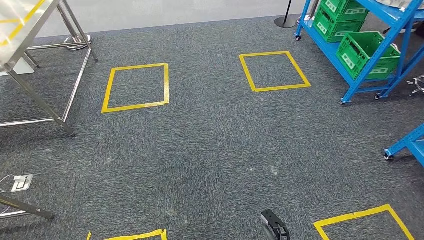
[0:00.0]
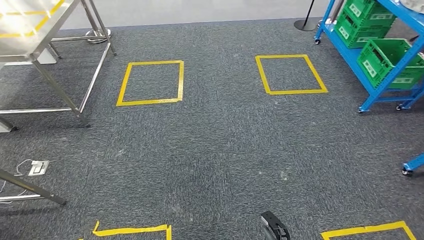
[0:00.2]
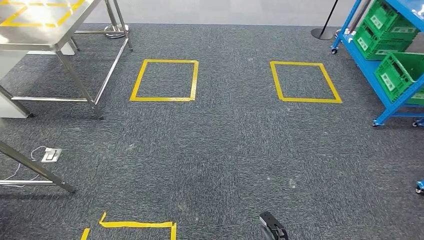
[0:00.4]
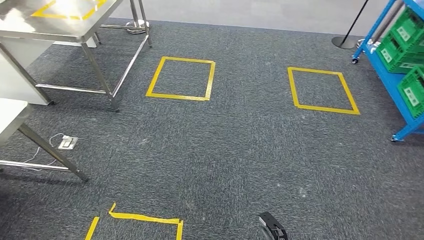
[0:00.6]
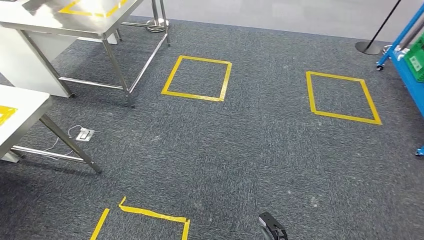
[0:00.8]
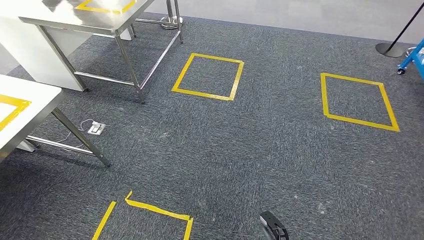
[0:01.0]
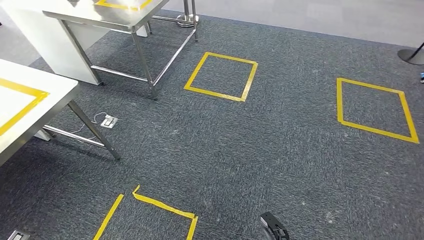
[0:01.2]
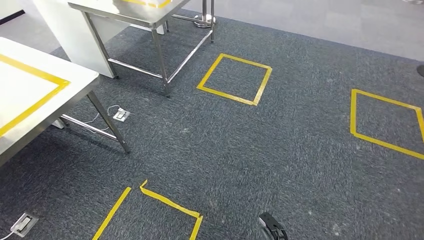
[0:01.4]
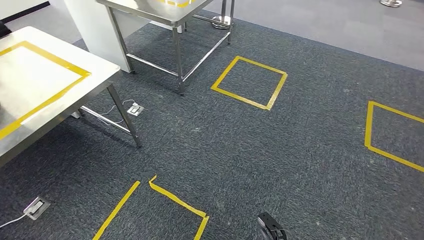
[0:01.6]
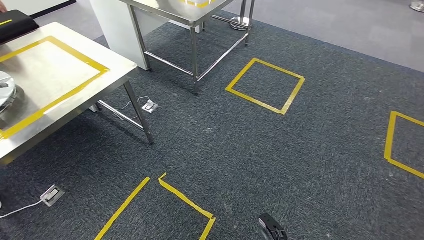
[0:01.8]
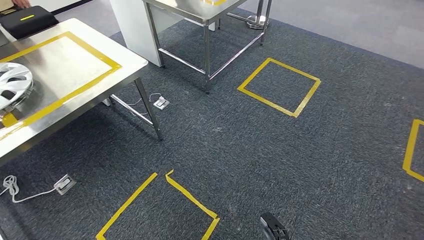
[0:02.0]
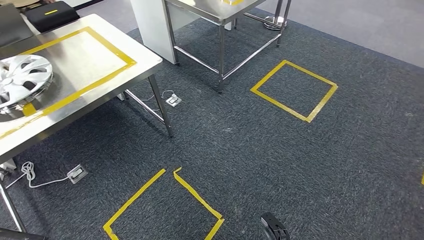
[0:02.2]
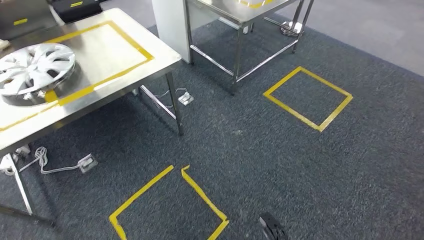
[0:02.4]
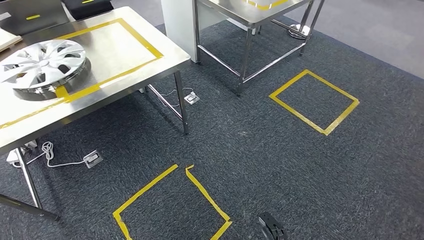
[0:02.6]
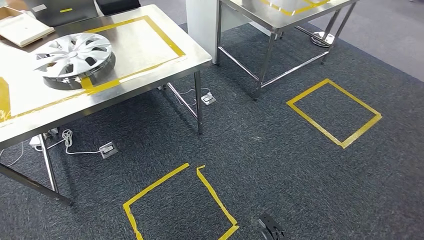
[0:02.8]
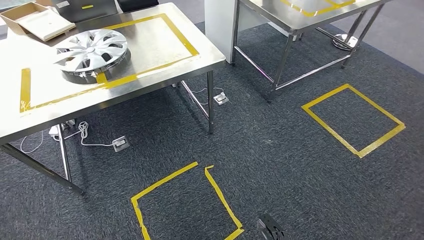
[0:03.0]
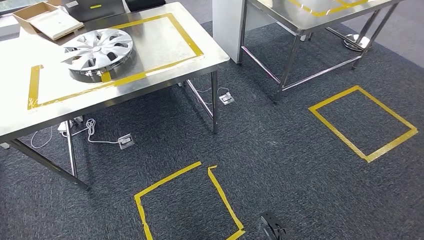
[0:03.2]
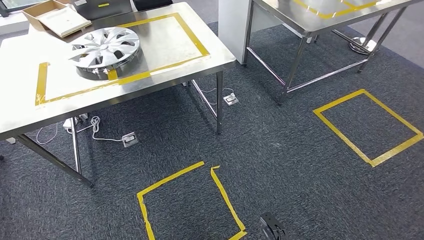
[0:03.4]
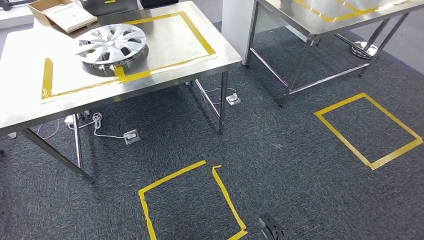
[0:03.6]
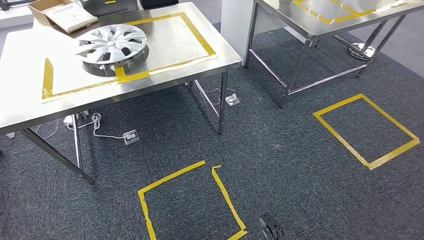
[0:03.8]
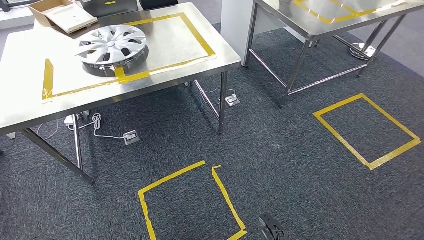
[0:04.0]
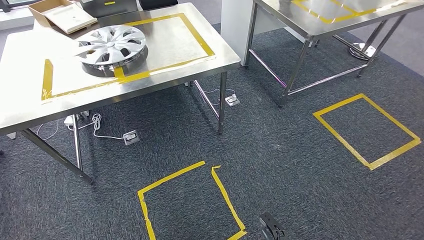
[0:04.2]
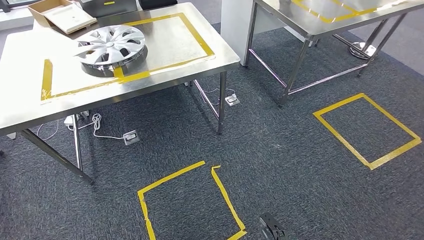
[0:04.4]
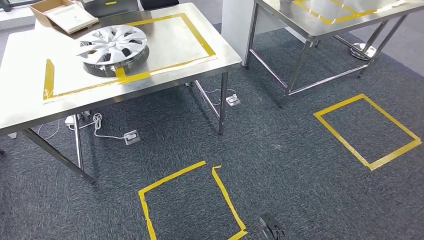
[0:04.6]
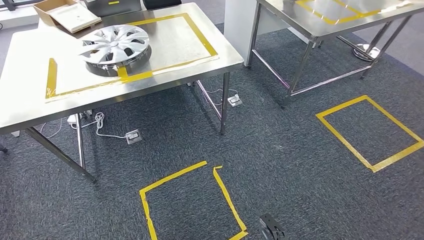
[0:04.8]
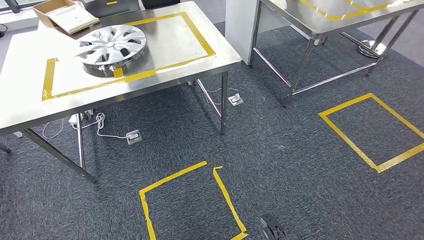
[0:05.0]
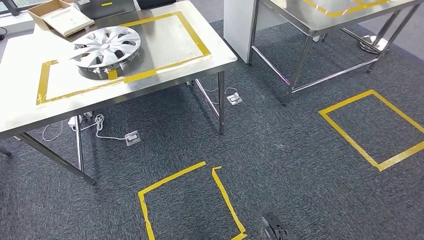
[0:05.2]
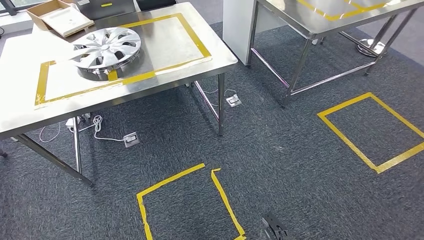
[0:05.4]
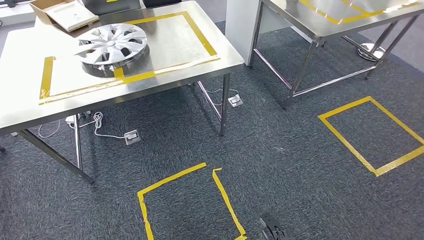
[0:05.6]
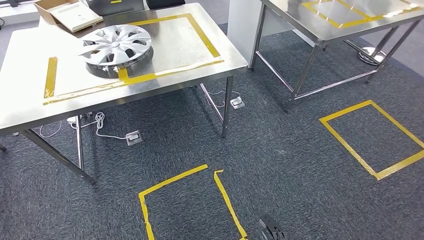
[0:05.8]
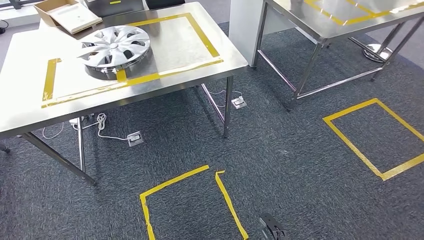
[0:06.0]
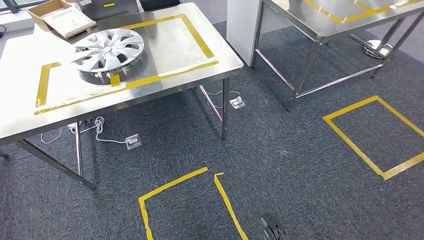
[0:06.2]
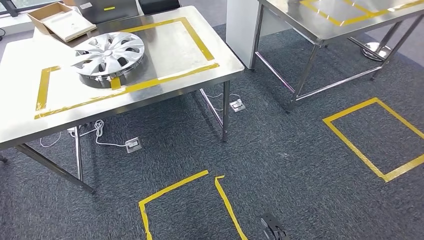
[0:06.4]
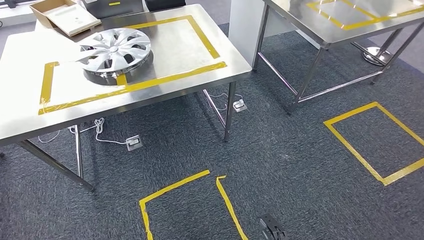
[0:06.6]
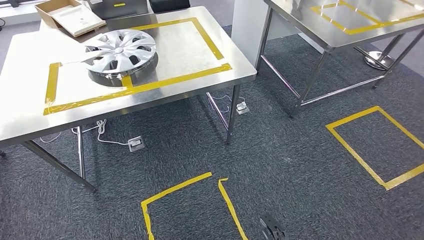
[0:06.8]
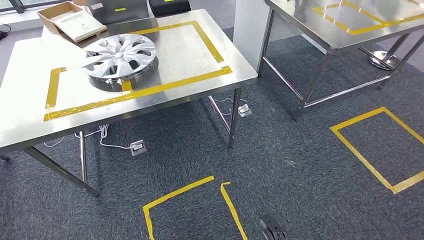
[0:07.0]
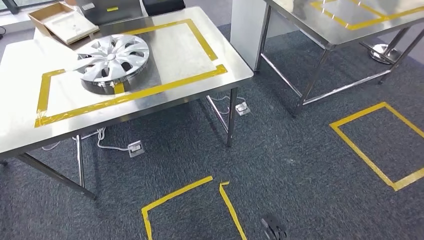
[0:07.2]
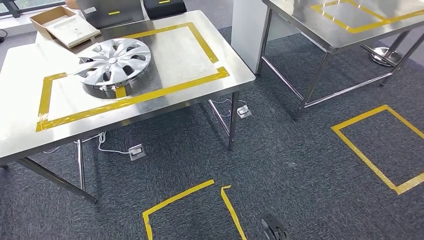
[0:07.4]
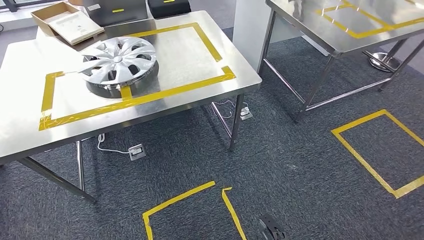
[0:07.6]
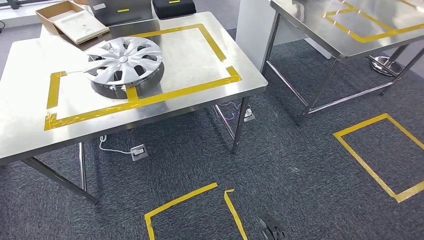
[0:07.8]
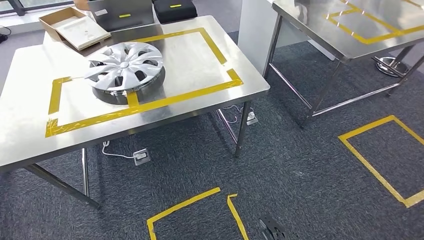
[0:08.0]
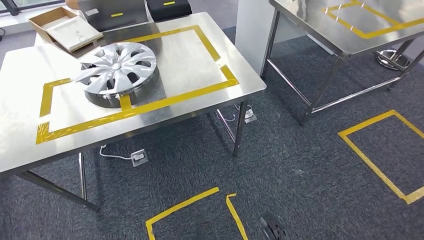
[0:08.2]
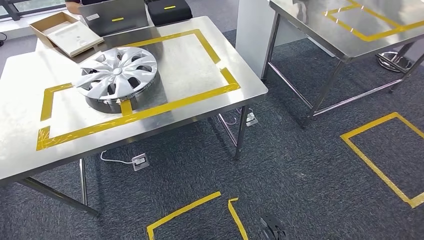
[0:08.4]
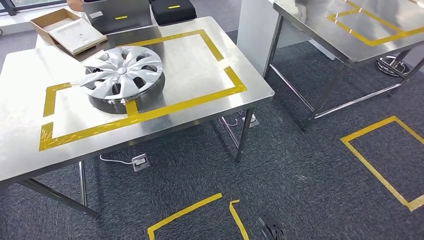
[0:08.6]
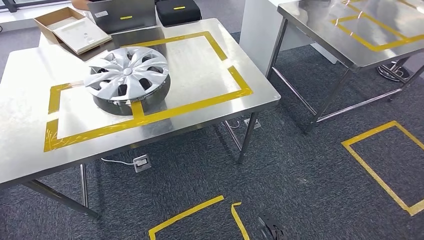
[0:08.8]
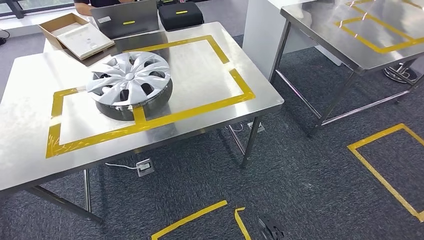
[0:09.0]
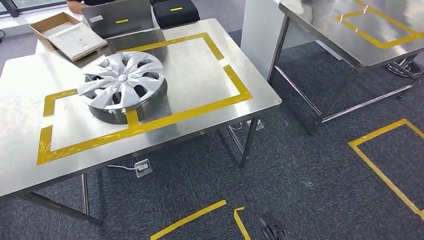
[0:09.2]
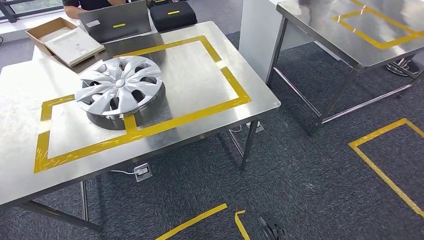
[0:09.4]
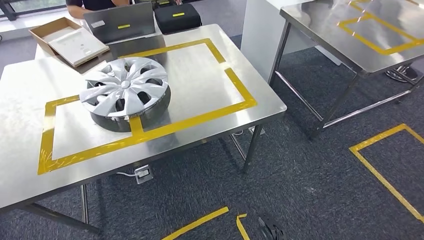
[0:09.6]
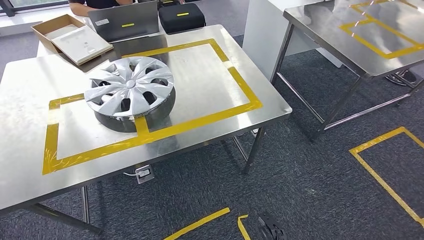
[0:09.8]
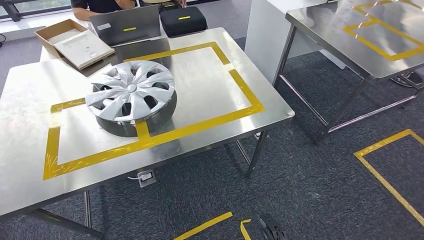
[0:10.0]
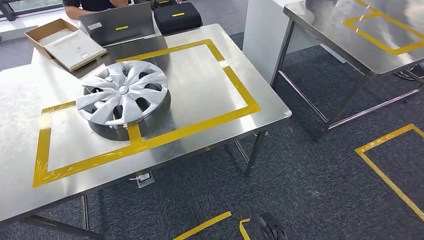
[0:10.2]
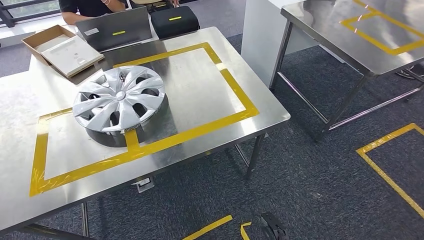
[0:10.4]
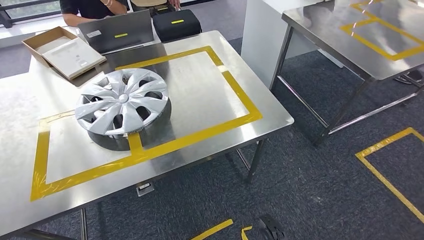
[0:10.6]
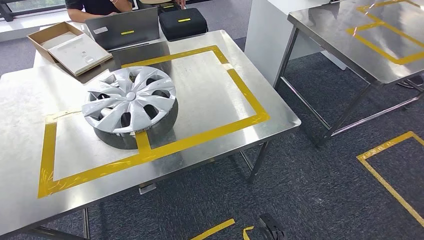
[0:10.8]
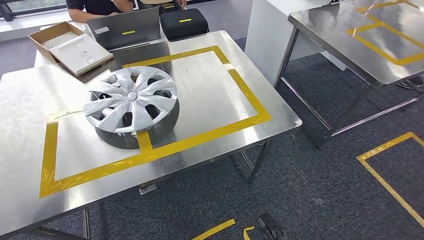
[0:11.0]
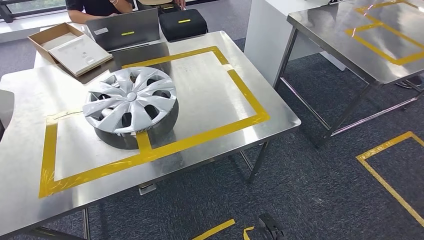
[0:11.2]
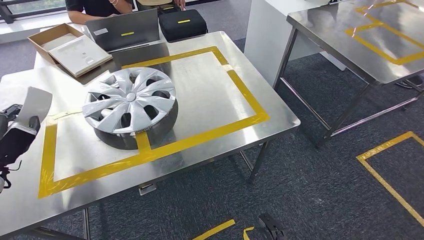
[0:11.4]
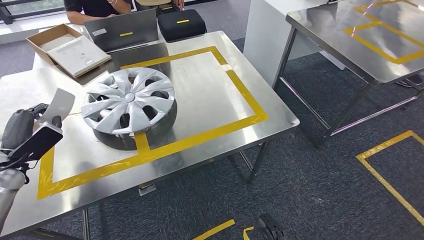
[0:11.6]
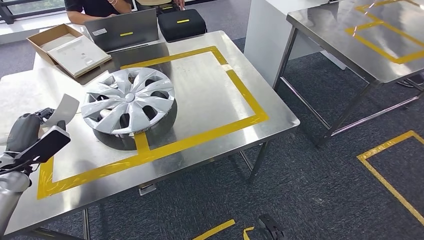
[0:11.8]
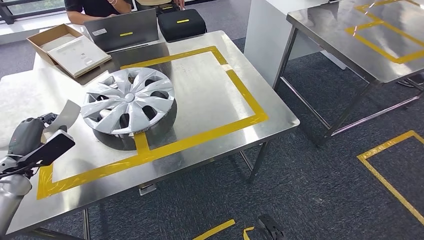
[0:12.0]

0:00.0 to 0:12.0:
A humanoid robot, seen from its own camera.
Step, 0:00.0 to 0:08.4: Move the small parts to the workbench.

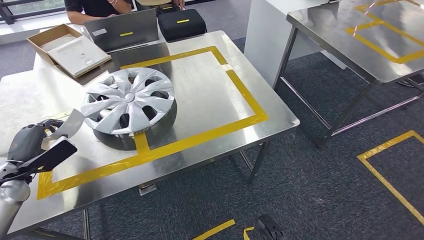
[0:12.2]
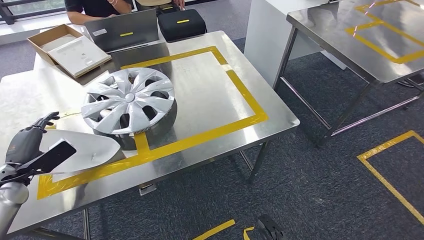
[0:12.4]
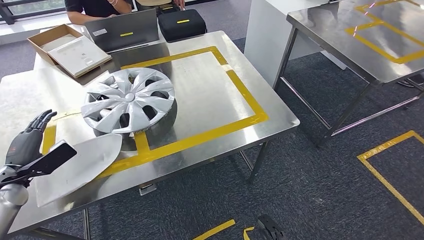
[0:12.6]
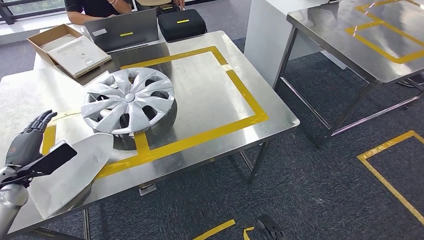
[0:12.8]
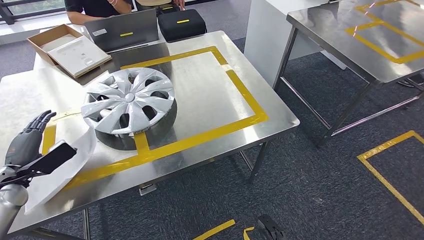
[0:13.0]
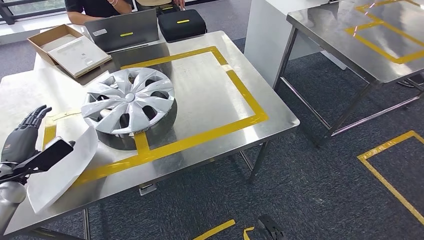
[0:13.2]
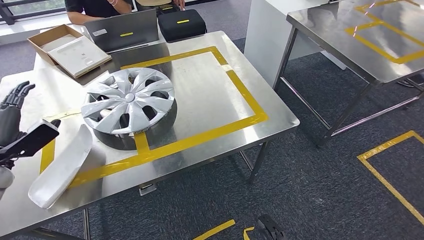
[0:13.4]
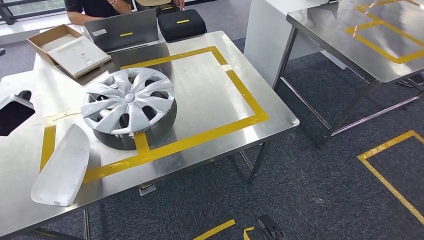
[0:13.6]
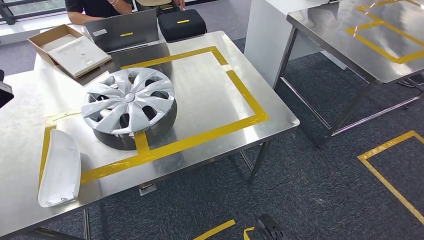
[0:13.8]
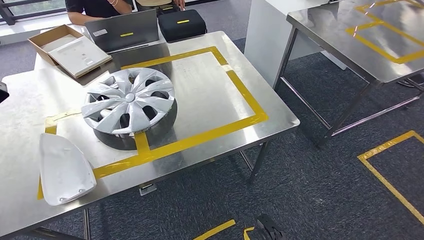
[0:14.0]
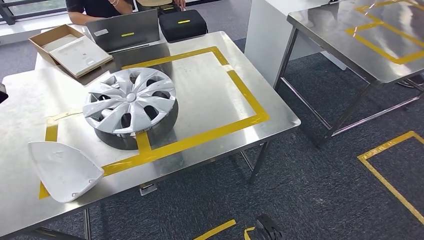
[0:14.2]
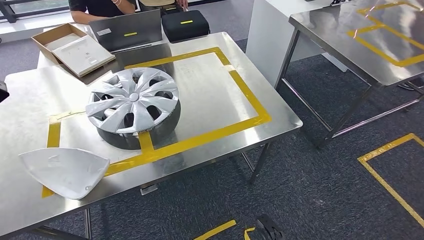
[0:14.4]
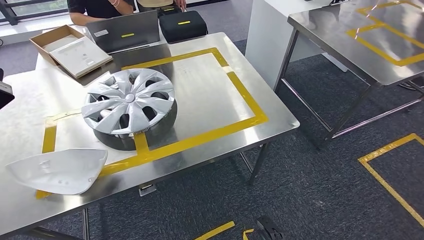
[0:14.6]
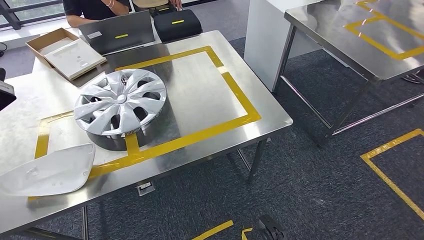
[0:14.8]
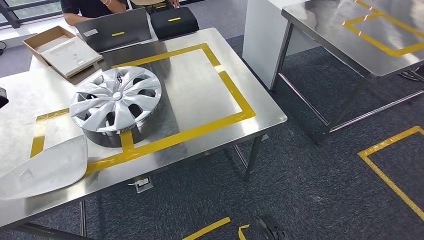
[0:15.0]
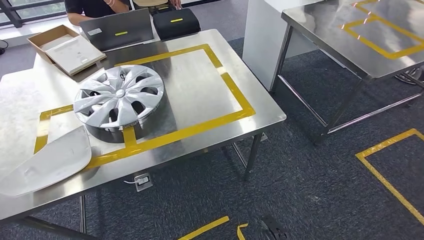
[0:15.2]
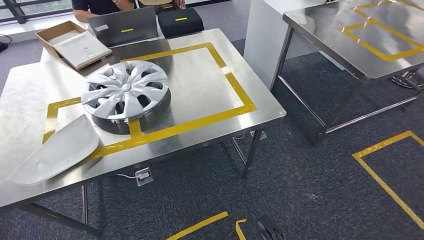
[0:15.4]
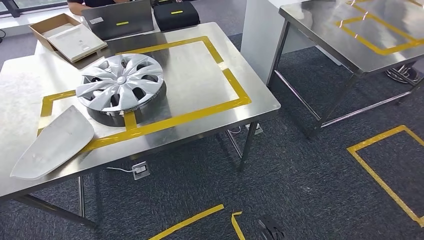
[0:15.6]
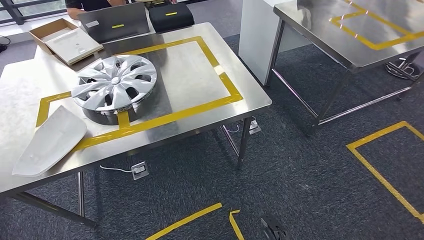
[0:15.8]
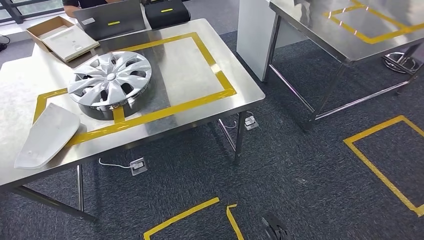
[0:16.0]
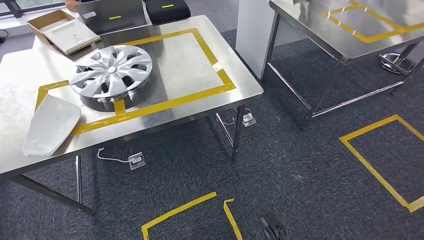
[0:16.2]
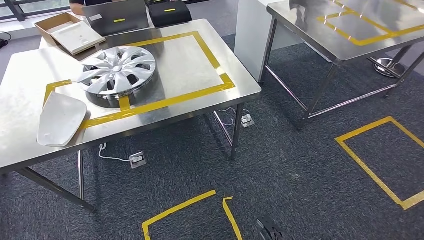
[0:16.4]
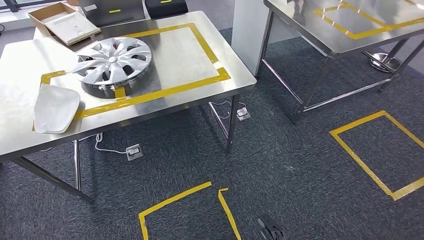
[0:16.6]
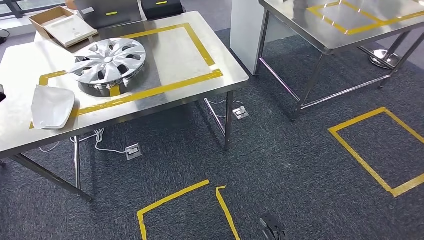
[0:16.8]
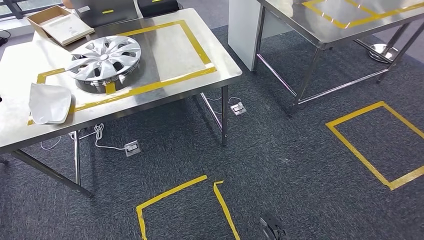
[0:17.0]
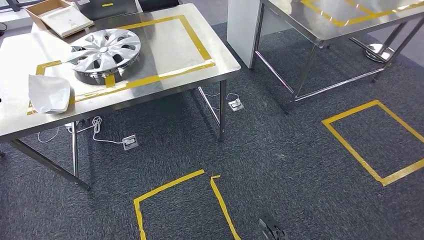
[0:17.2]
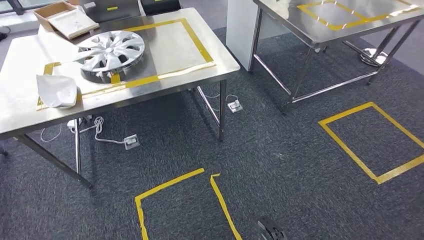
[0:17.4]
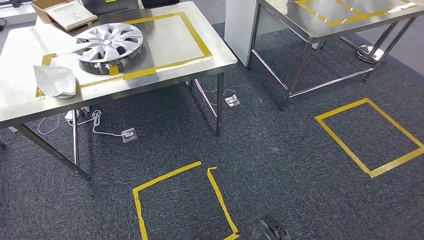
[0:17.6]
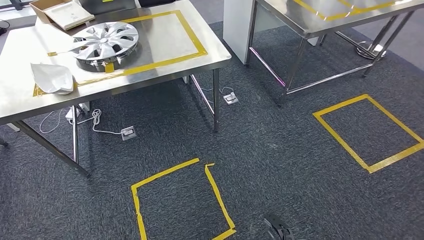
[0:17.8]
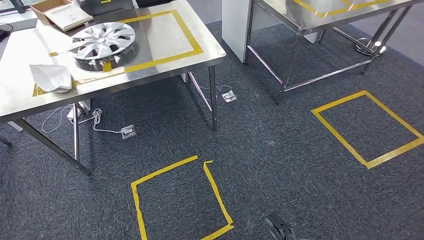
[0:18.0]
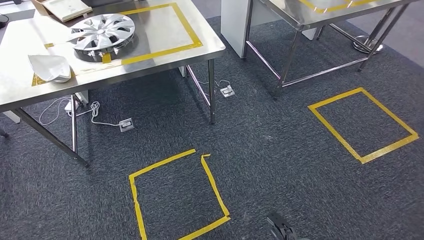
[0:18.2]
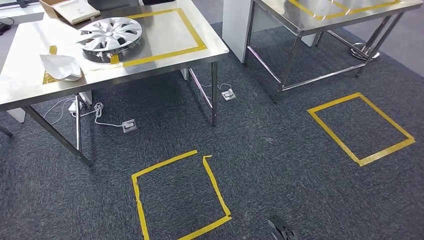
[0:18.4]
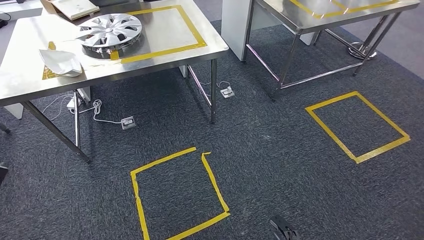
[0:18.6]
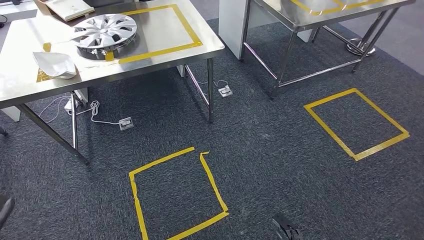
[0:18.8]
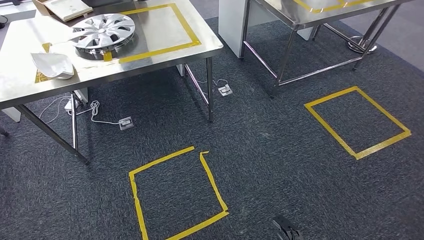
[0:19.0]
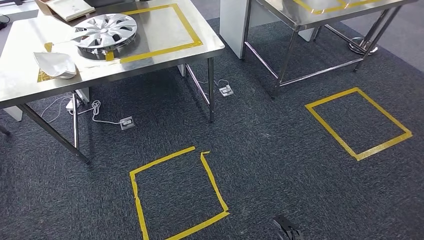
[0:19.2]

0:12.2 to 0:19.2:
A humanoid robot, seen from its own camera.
Step, 0:14.2 to 0:19.2: Move to the initial position of the workbench.
0:12.2 to 0:13.6: The left hand heads upward, covering about 10 cm.
